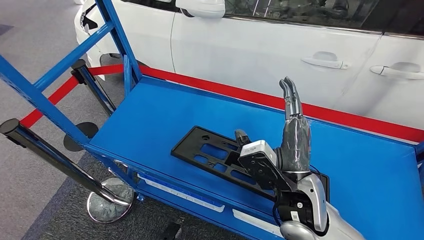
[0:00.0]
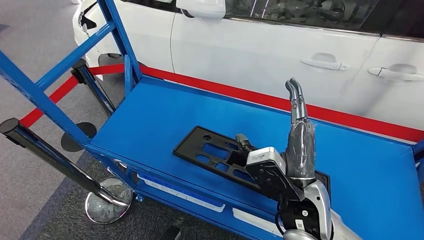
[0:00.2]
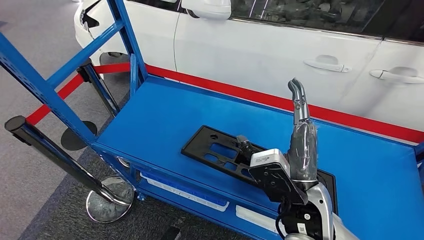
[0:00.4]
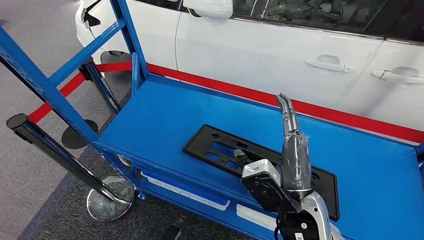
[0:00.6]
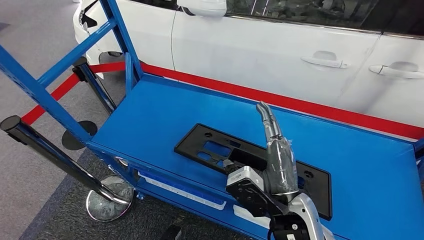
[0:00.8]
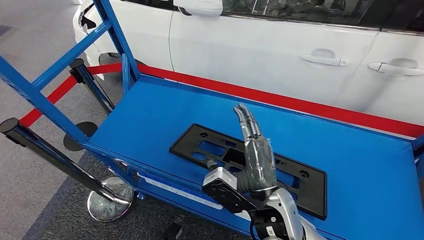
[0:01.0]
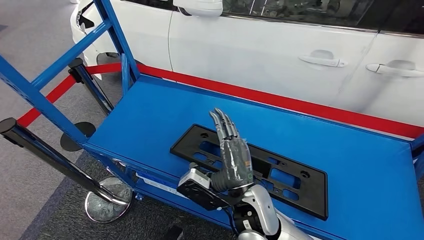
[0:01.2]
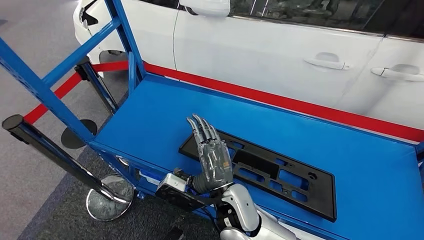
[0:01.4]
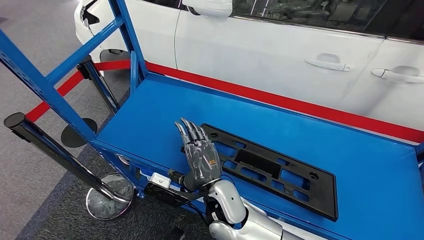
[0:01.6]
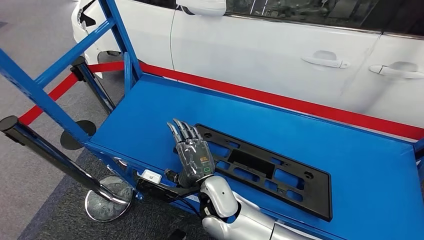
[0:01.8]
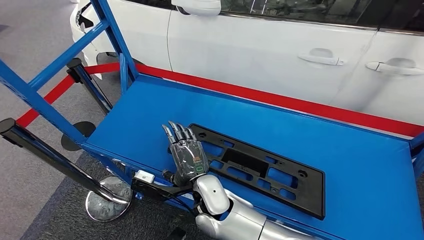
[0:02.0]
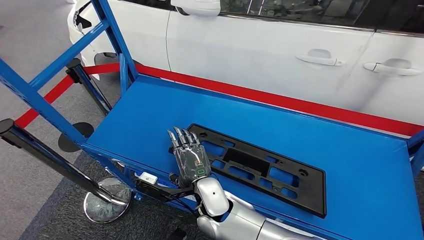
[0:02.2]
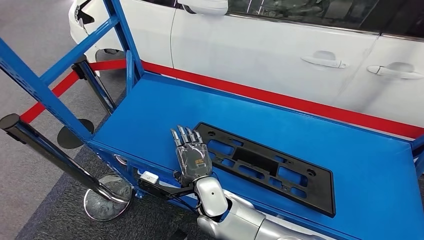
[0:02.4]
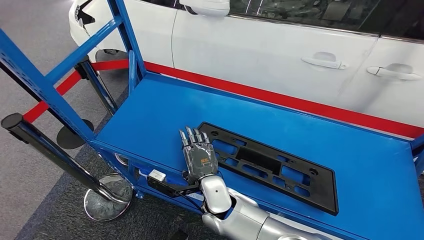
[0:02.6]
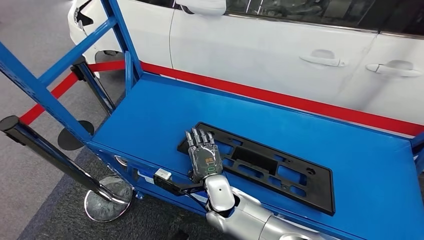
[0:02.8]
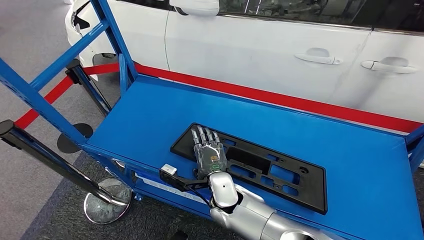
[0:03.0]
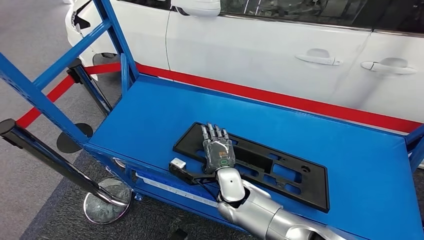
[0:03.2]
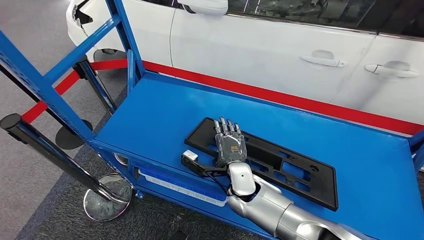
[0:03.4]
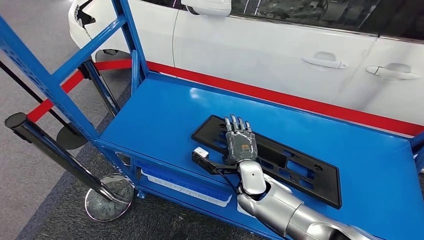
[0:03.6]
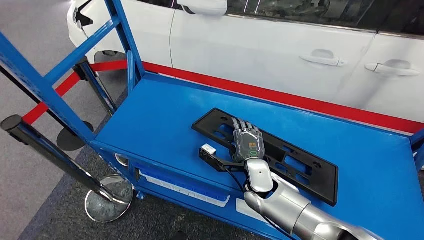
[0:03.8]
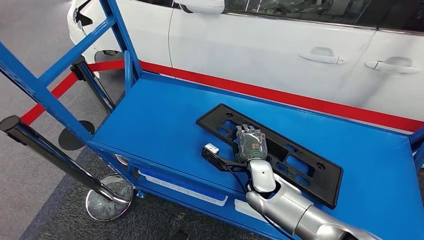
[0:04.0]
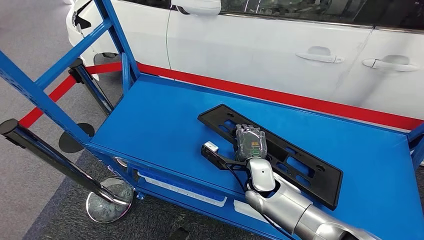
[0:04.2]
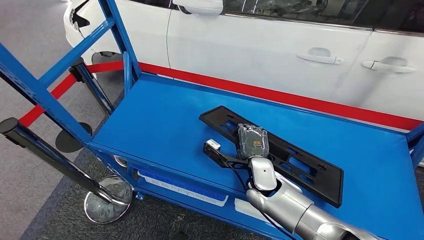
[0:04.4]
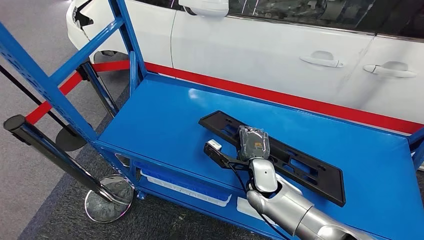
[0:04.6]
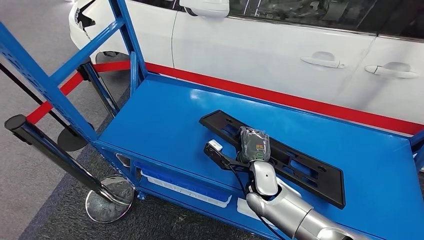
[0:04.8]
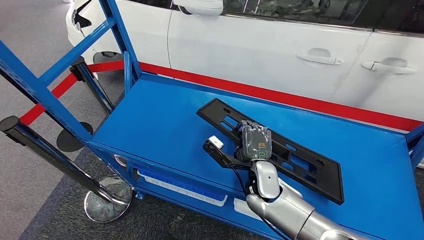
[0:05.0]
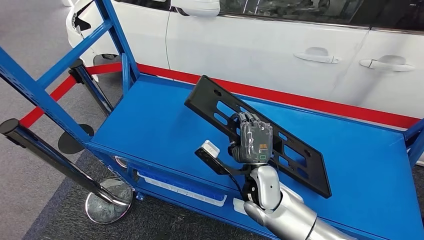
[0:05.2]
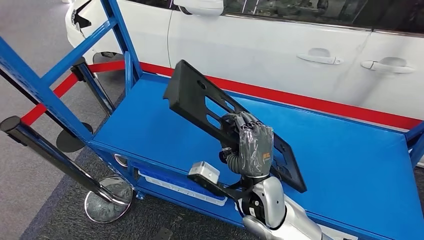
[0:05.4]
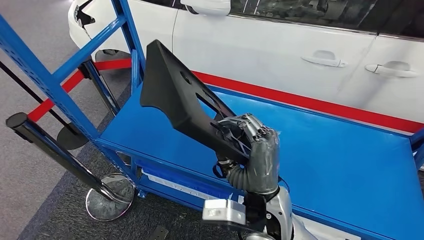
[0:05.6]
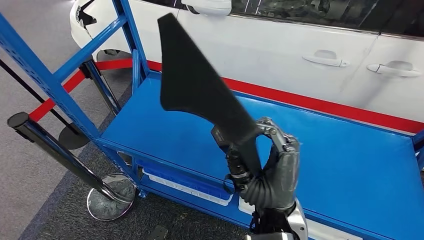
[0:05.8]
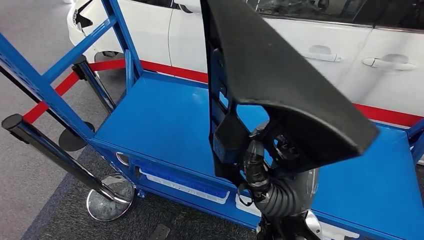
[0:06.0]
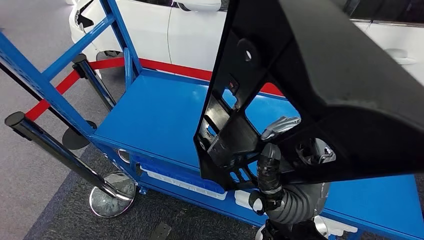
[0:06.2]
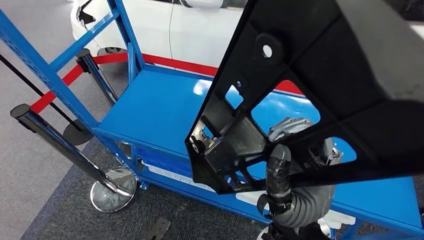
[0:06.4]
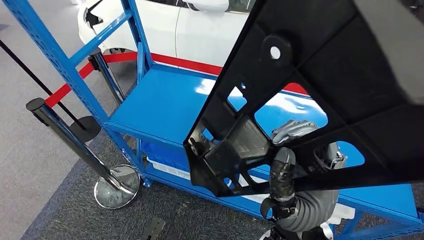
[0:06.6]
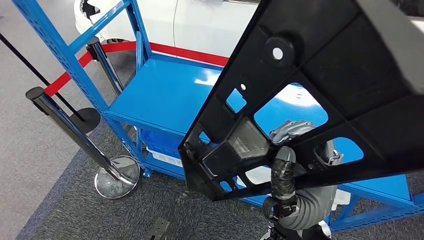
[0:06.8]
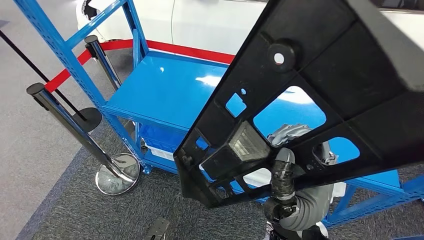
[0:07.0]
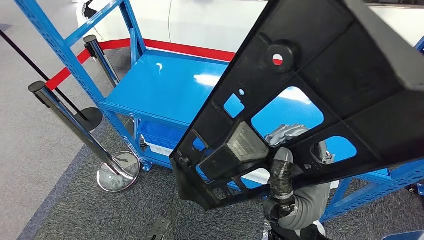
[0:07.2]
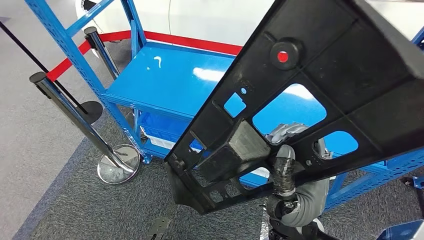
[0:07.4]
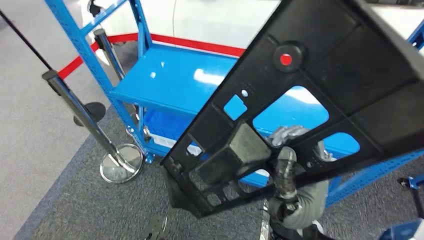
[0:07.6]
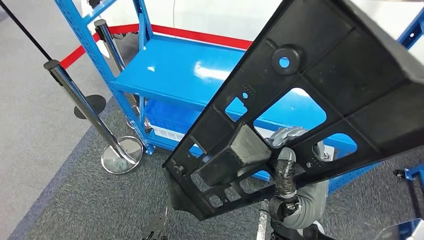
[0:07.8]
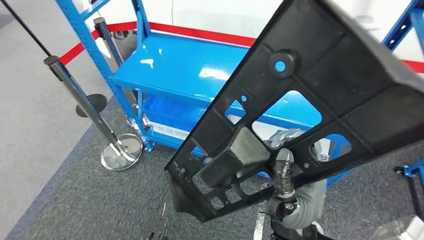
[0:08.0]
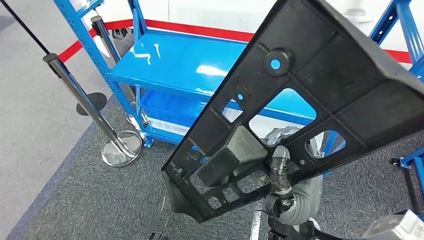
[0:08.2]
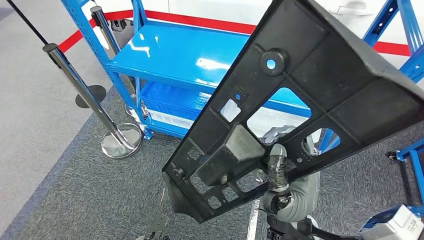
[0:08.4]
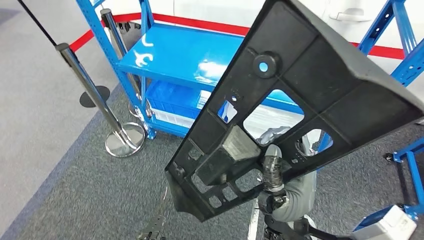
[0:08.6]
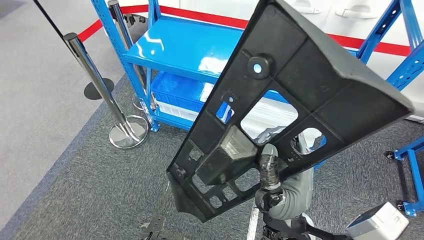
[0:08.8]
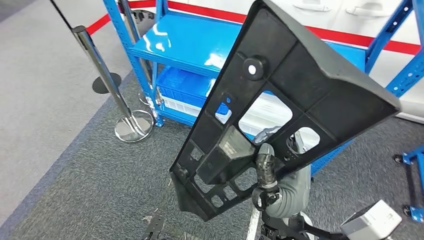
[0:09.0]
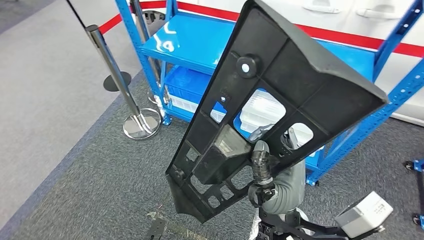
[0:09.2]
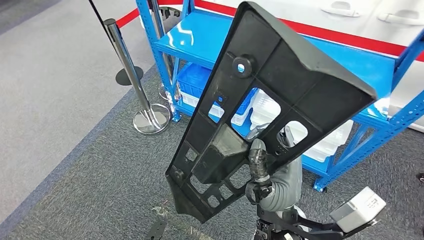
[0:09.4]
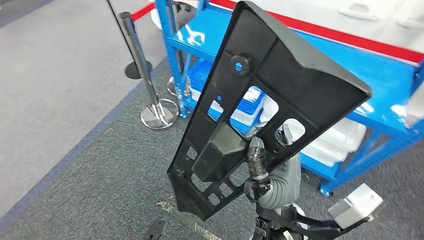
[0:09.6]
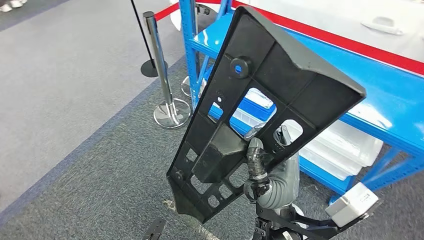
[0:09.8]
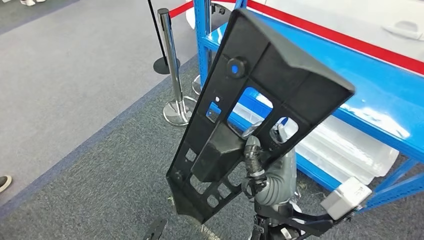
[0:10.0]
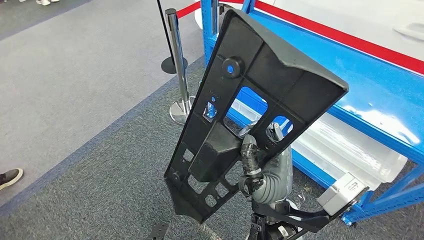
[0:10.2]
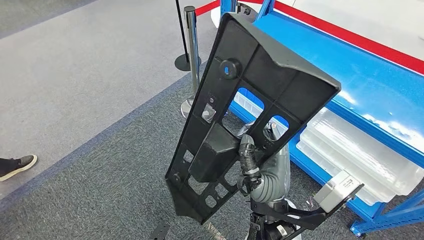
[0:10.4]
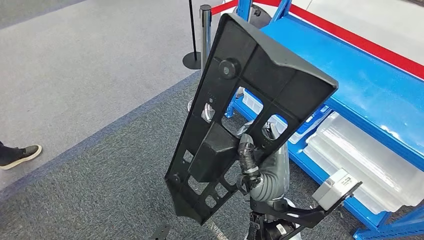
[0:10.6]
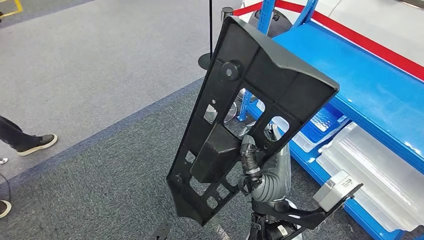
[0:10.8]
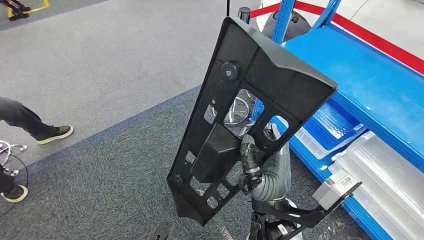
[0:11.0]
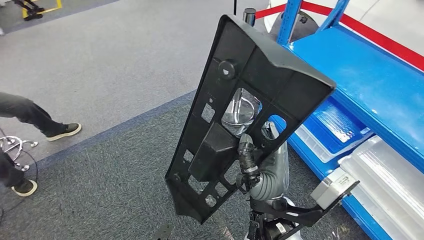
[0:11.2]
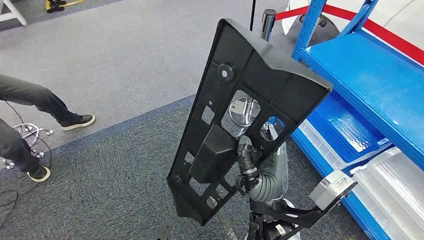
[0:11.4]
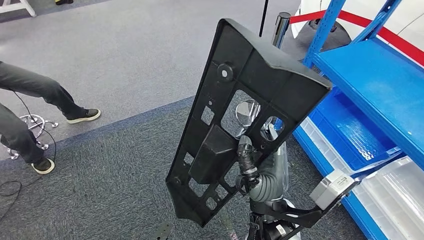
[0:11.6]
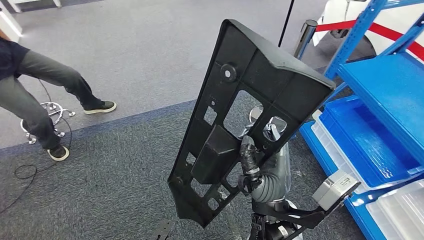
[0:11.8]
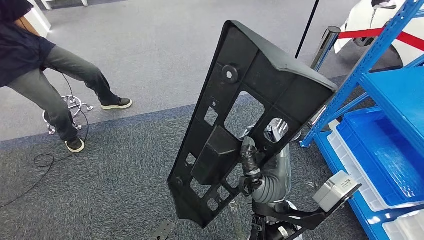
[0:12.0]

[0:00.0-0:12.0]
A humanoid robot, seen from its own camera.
Step, 0:00.0 to 0:05.8: Pick up the large material from the shelf.

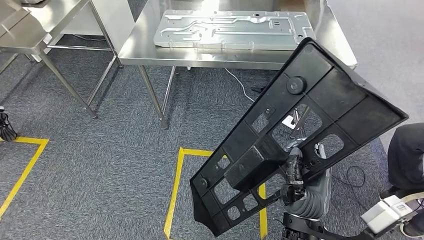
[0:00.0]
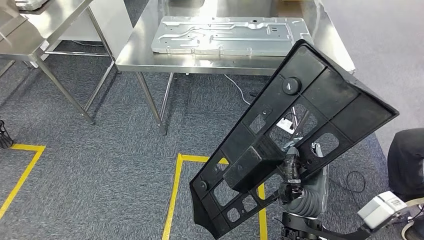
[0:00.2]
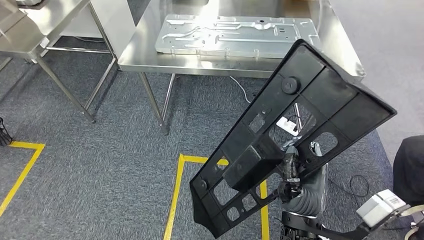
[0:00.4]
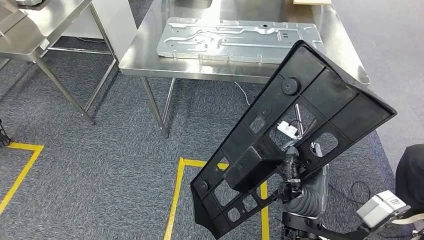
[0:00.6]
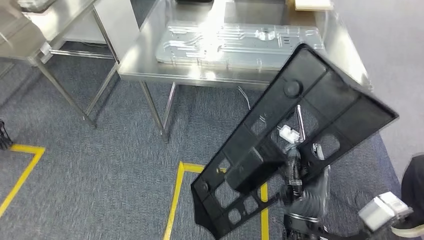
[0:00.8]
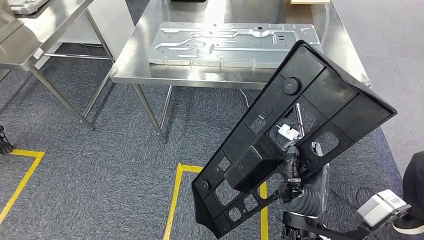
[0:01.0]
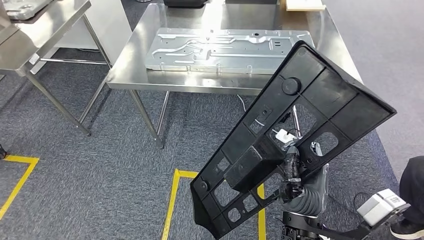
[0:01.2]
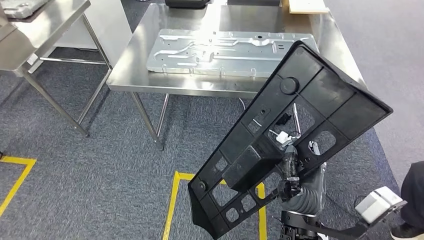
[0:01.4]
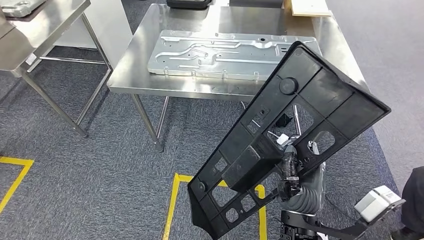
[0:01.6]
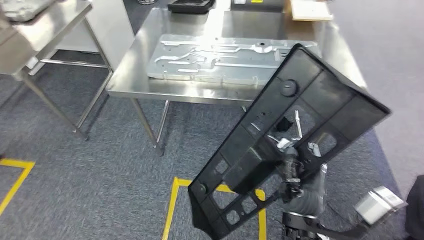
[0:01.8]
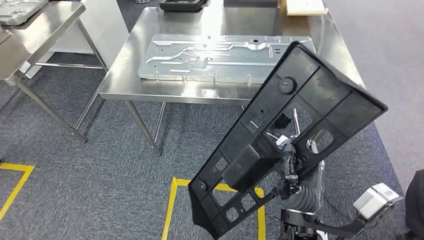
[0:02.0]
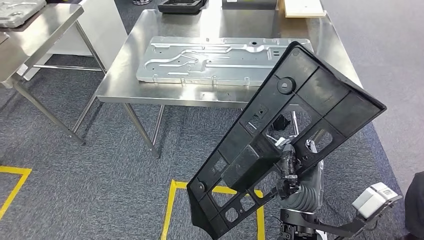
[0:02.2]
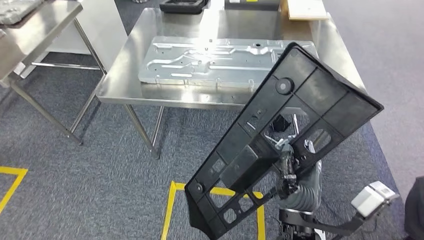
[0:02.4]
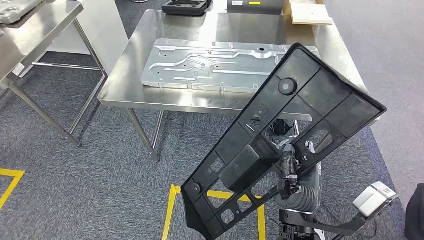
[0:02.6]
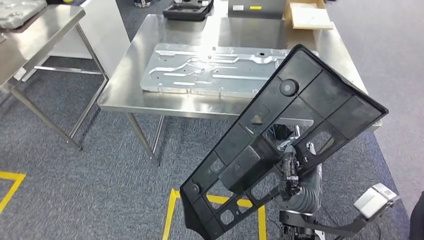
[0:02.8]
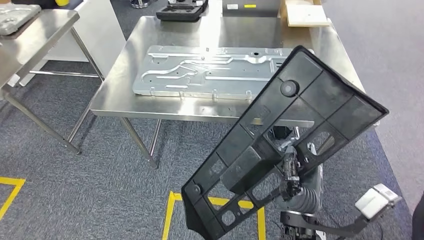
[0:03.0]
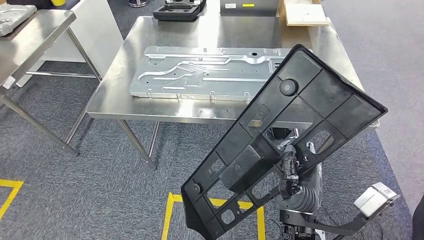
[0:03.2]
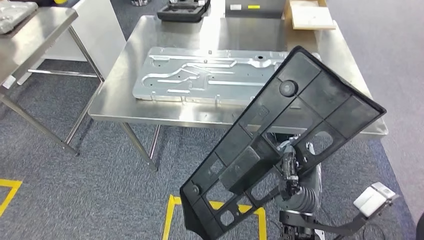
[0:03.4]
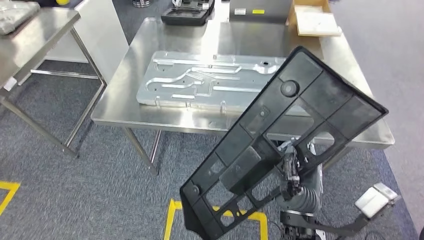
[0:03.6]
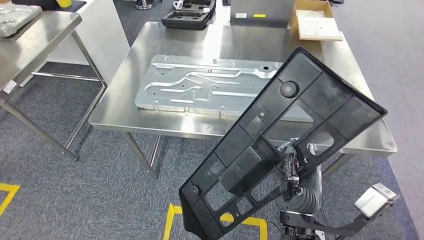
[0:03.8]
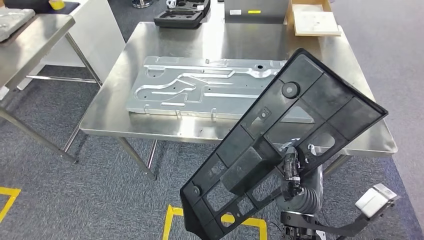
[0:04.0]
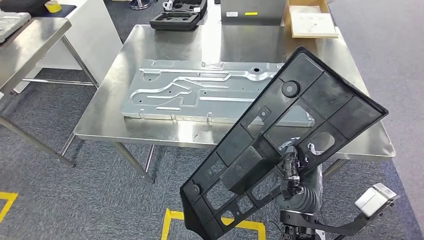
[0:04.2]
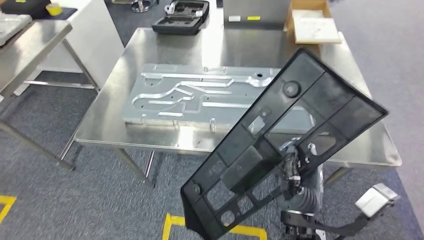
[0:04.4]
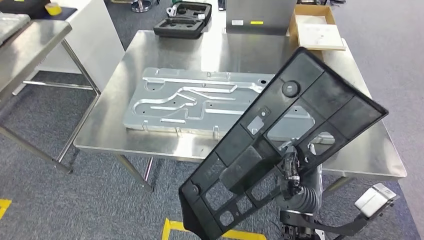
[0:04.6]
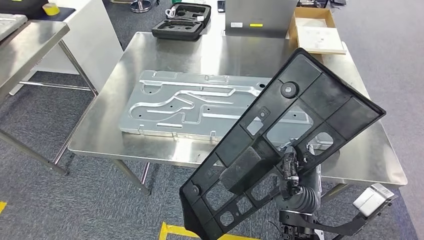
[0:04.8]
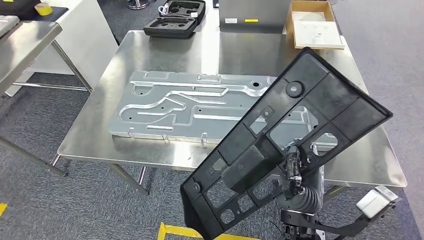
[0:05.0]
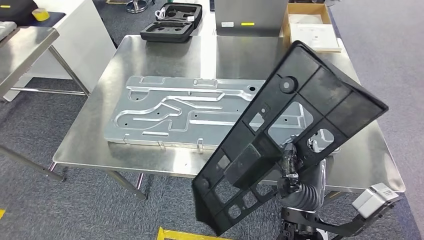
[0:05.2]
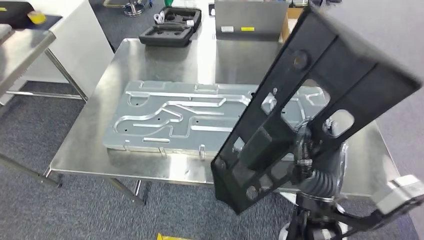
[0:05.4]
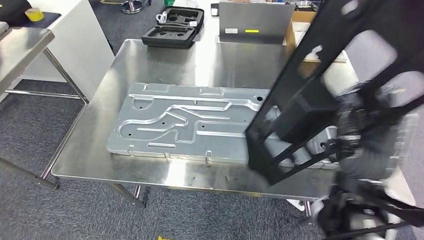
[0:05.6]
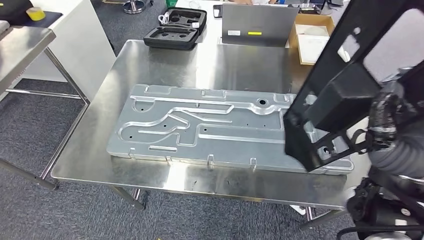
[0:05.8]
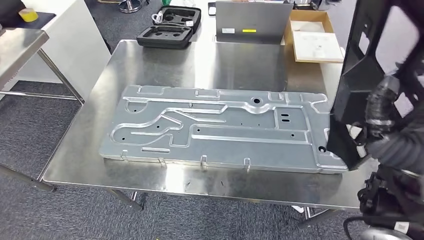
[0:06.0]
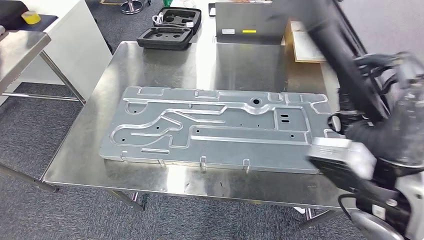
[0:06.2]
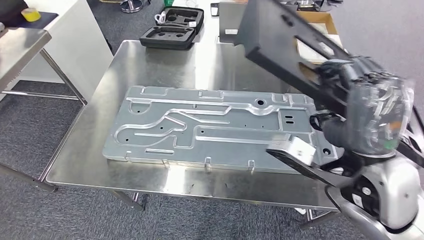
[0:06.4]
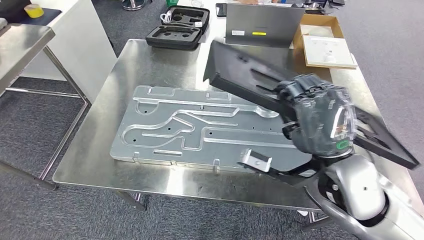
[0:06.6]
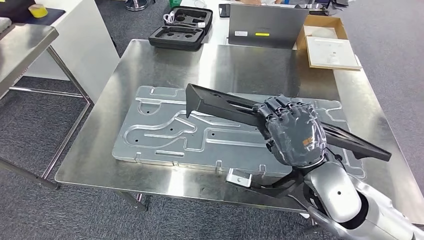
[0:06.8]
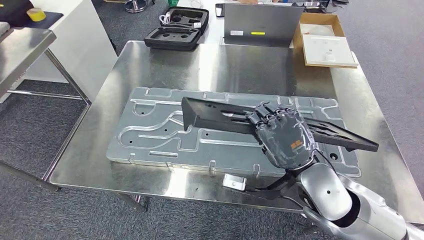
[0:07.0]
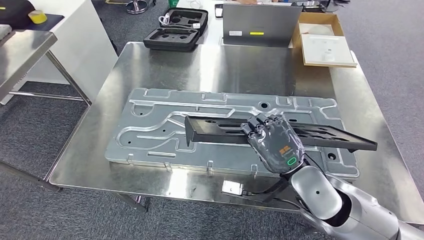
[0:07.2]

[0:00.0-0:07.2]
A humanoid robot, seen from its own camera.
Step, 0:00.0 to 0:05.0: Move the large material to the workbench.
